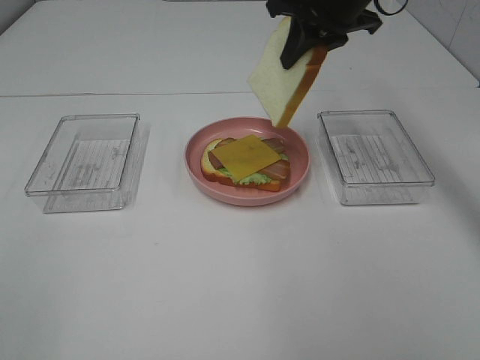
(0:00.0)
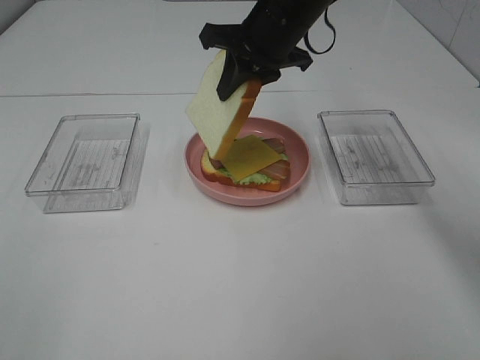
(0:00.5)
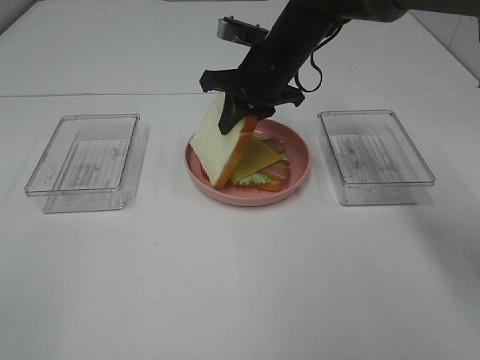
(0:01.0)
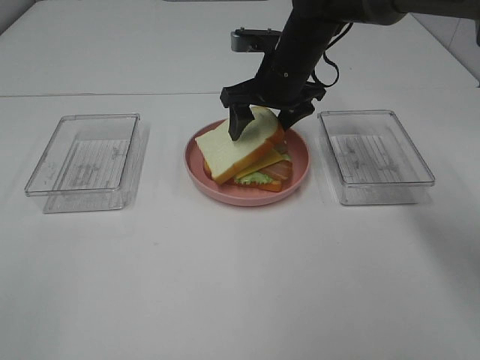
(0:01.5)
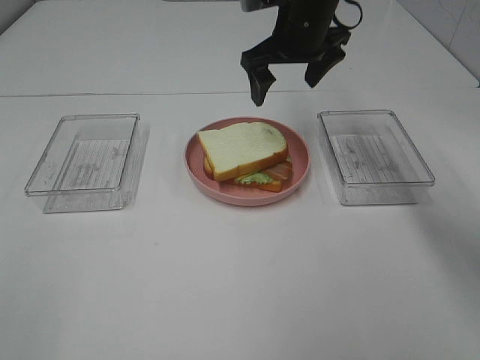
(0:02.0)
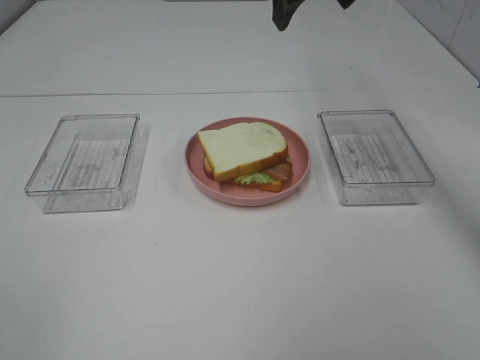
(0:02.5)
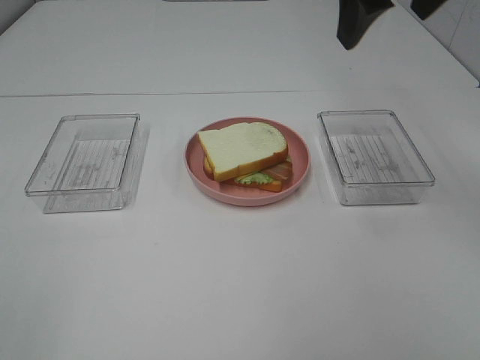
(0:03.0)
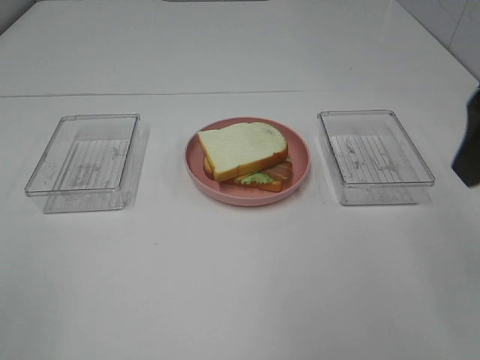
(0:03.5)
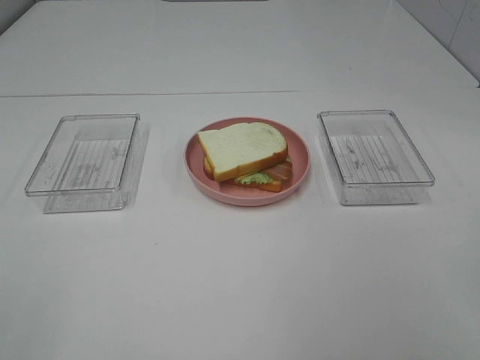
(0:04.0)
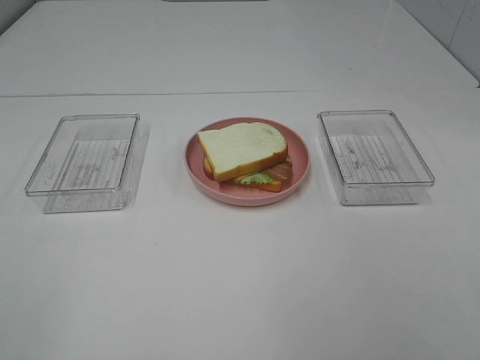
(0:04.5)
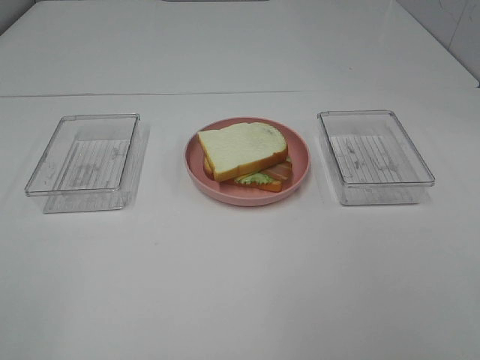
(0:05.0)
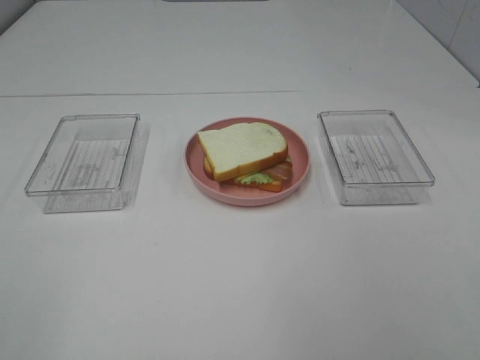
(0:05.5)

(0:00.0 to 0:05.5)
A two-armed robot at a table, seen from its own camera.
Task of the whole recording: Make sandwiches.
Step, 0:00.0 - 0:01.5: Right hand:place the bread slice on the cheese slice.
0:00.0 - 0:02.0: The right gripper moves roughly 10 cm downward and comes back, and opens its fingers.
0:02.0 - 0:03.5: The right gripper moves backward and to the right, approximately 30 cm.
0:03.5 - 0:05.5: The right gripper heads backward, covering about 20 cm.

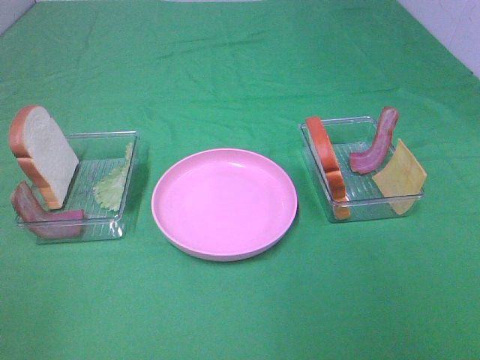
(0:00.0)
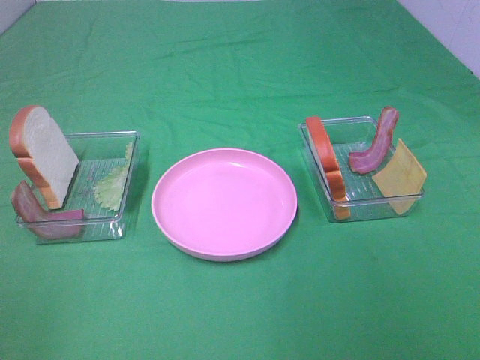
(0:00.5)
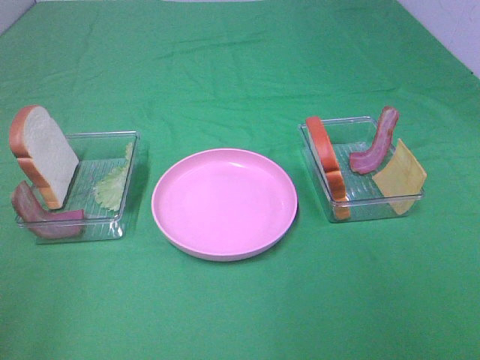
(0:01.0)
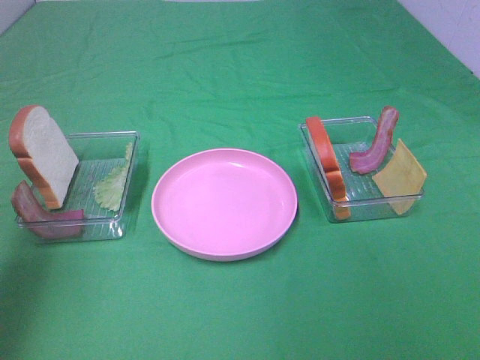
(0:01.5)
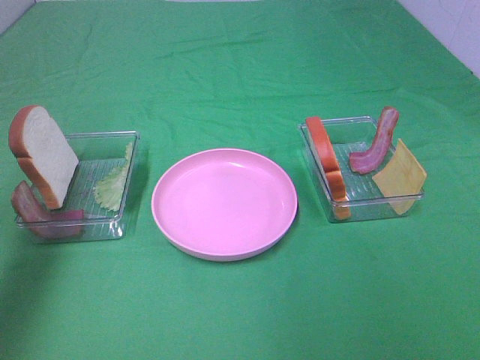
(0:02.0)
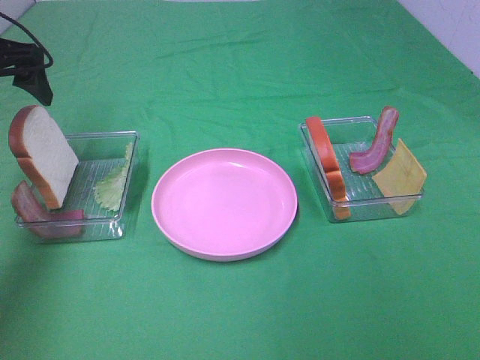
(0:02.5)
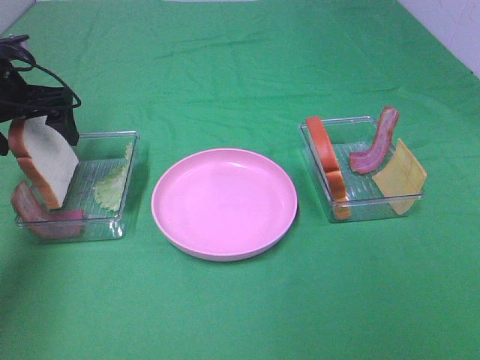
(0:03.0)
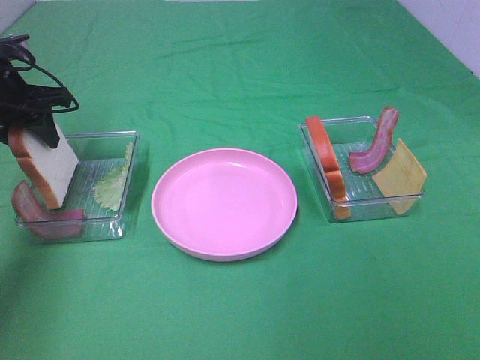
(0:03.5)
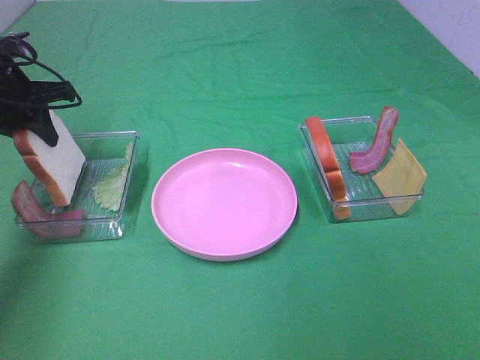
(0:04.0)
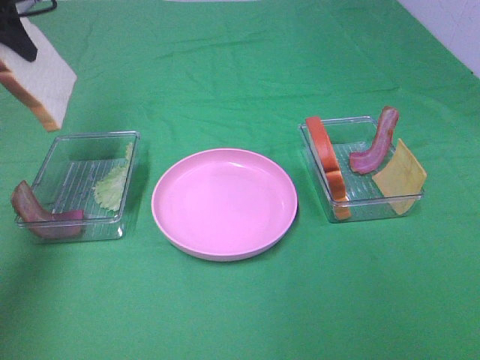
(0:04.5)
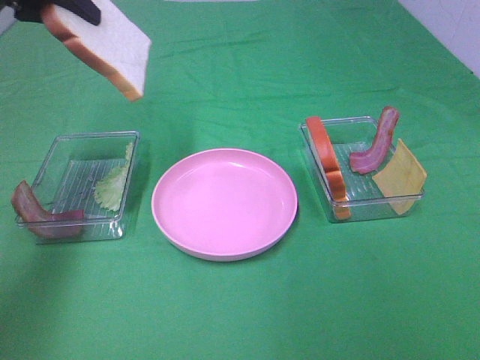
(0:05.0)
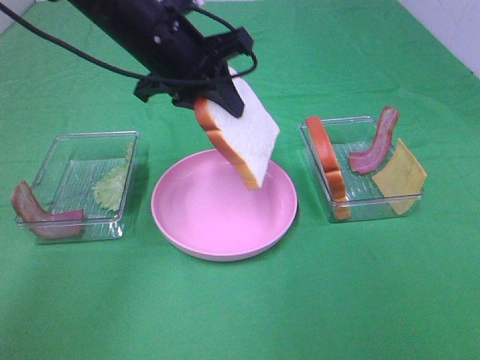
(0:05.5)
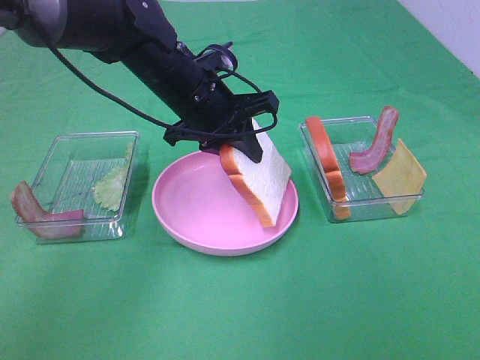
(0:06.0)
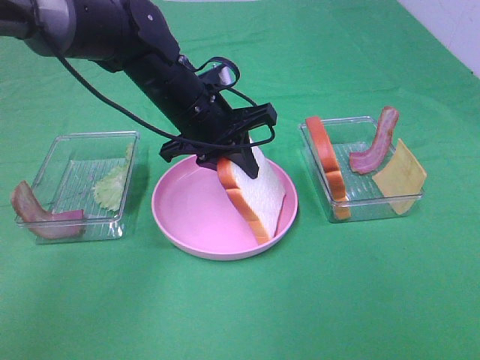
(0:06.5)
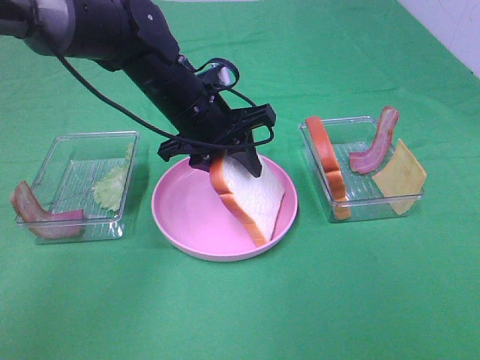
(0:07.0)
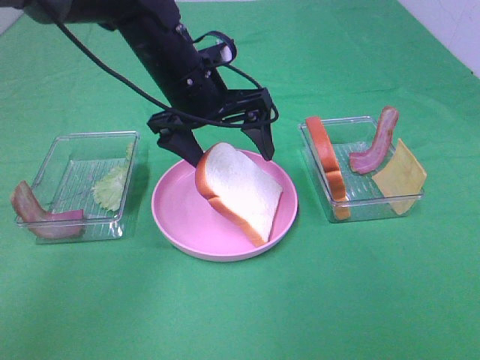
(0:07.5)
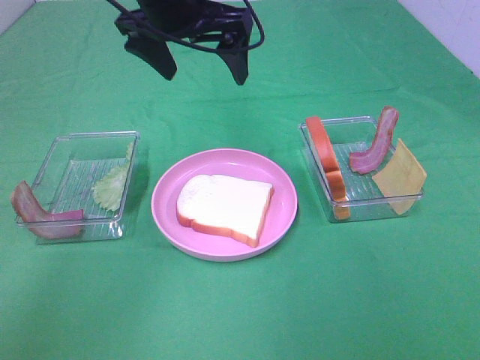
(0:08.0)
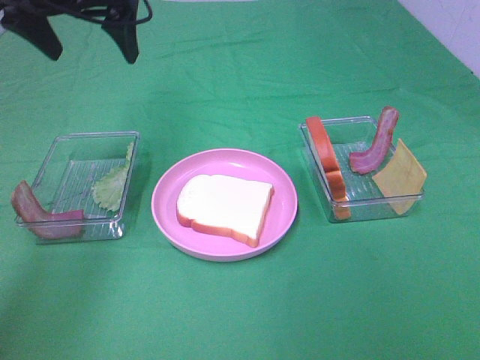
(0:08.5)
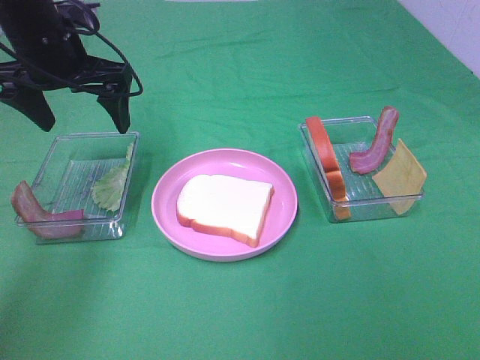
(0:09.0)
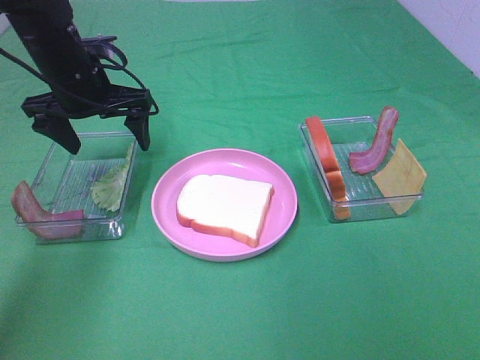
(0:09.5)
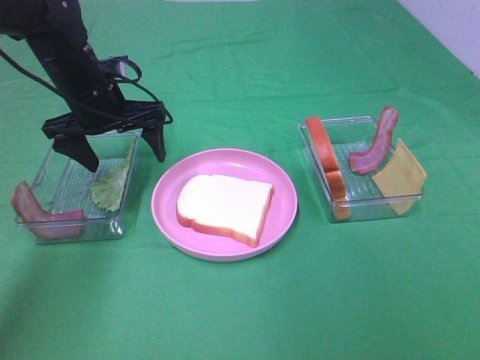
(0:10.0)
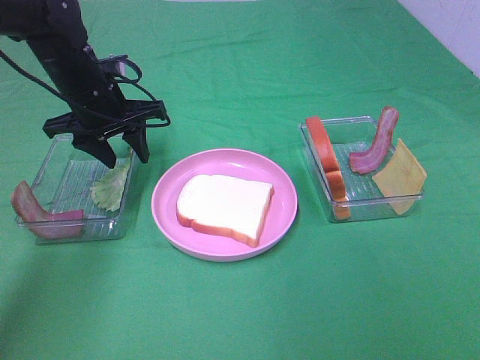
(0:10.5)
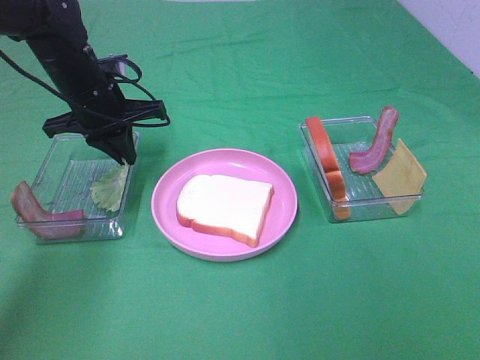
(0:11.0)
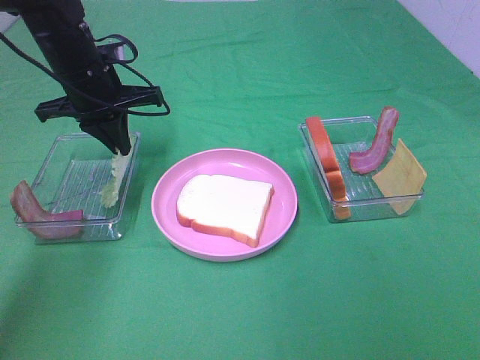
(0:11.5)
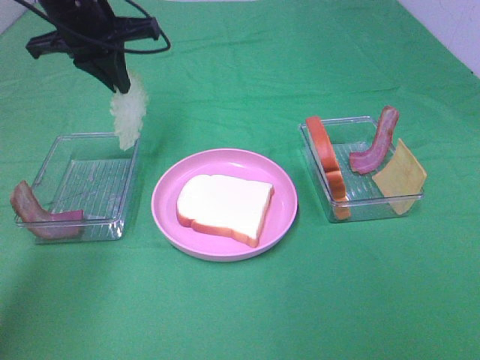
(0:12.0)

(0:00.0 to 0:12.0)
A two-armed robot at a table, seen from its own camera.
Task of the whole recording: Make sandwiches.
Step, 0:00.0 - 0:03.5: Left hand:grab the bread slice.
Step, 0:04.0 - 0:07.5: Left hand:place the bread slice on the plate.
Step, 0:08.0 - 0:11.0: Left hand:grab the lettuce slice.
0:00.0 - 0:02.0: The left gripper travels forward by some 30 cm.
0:02.0 - 0:04.0: The left gripper moves forward and downward, roughly 15 cm, and closes up.
0:04.0 - 0:06.0: The left gripper goes roughly 25 cm to the right.
0:06.0 - 0:08.0: The left gripper heads upward, covering about 15 cm, and opens.
0:08.0 - 0:10.0: The left gripper goes some 20 cm downward and to the left.
0:10.0 - 0:12.0: The left gripper moves upward, roughly 10 cm, and closes.

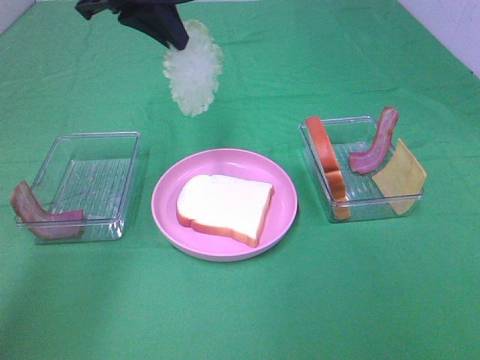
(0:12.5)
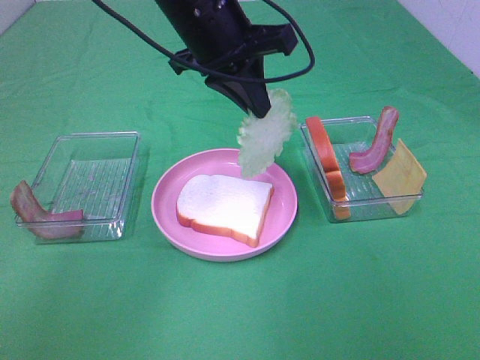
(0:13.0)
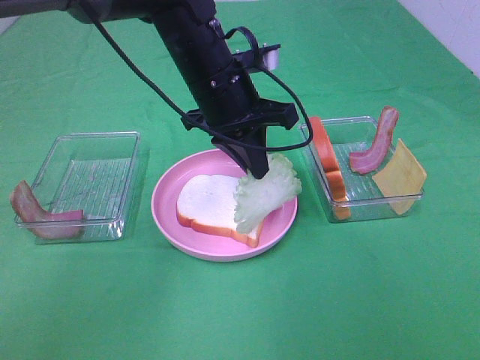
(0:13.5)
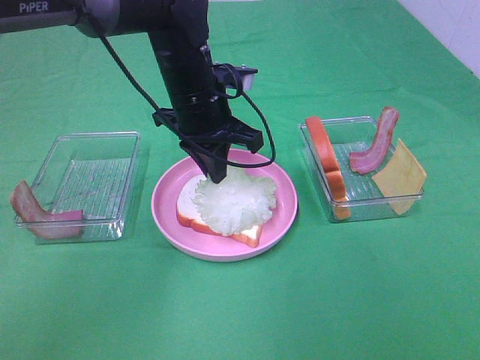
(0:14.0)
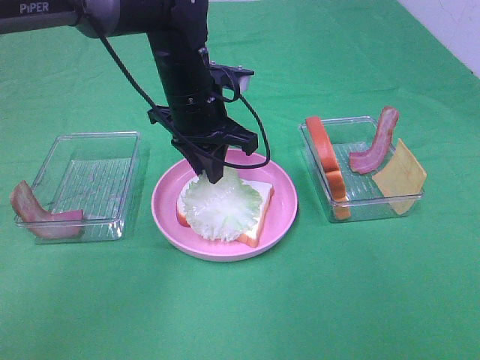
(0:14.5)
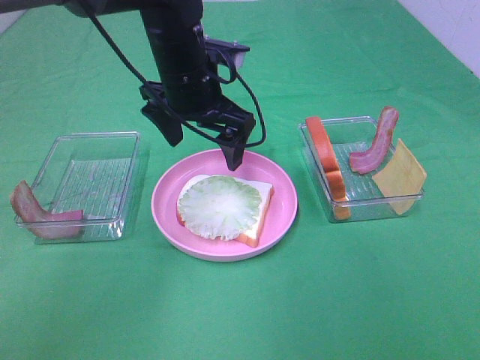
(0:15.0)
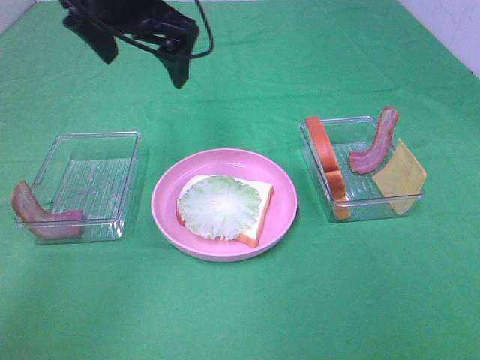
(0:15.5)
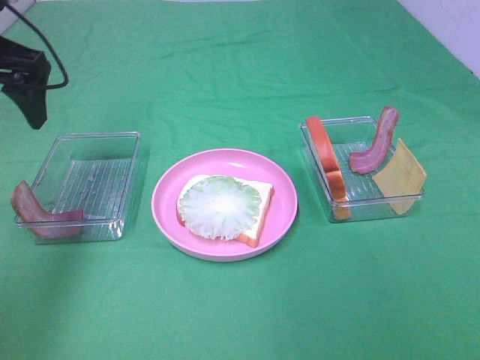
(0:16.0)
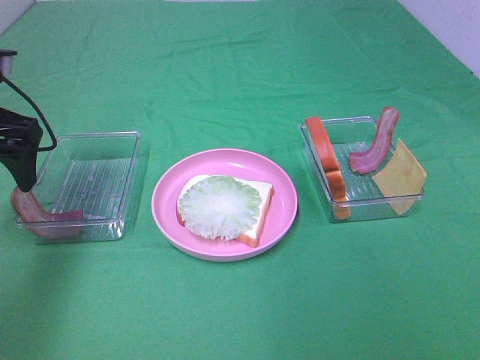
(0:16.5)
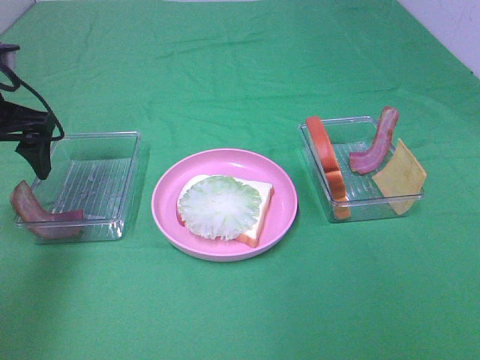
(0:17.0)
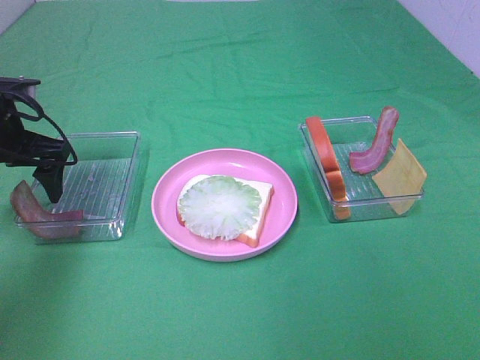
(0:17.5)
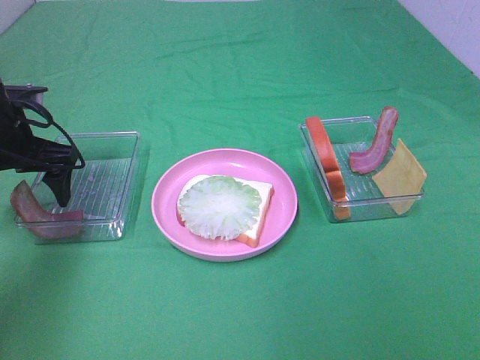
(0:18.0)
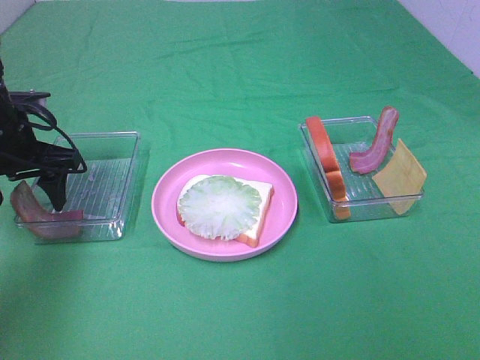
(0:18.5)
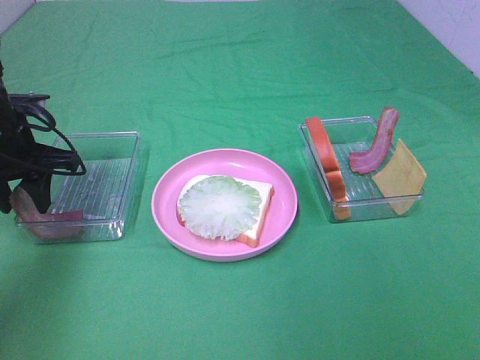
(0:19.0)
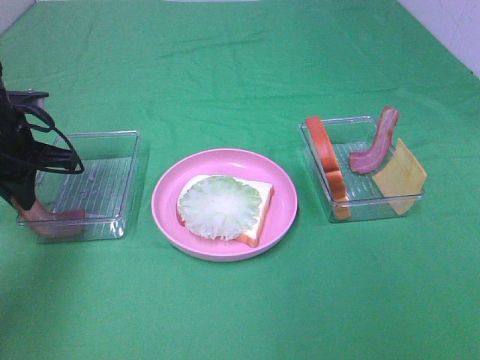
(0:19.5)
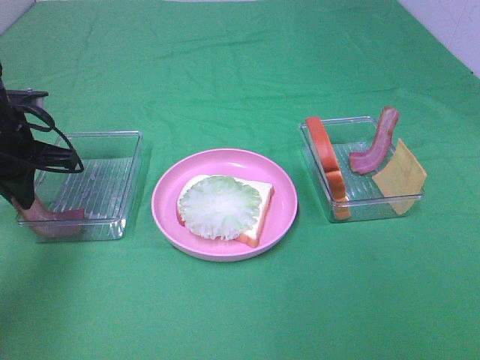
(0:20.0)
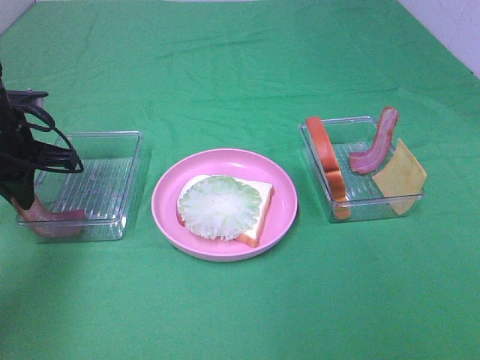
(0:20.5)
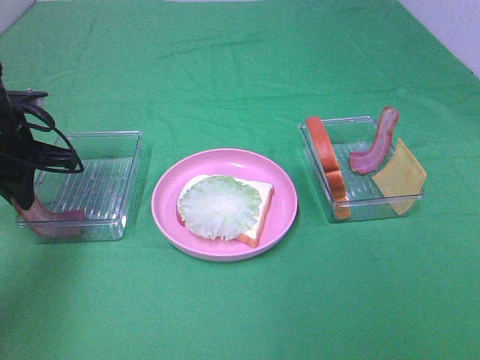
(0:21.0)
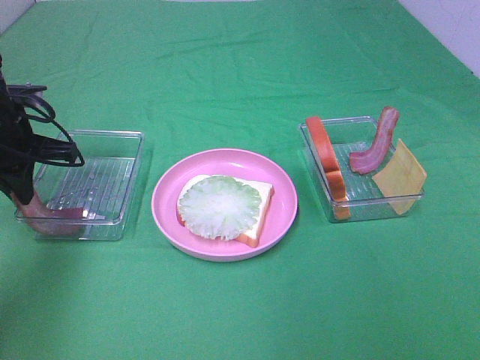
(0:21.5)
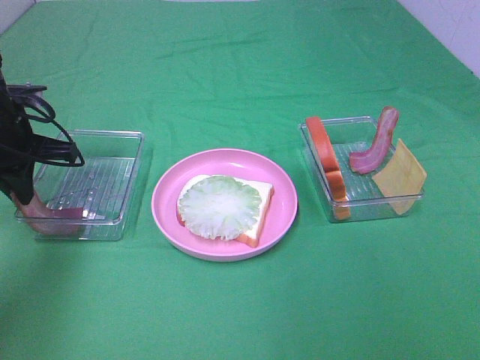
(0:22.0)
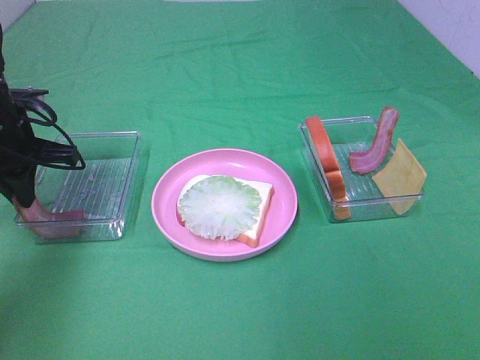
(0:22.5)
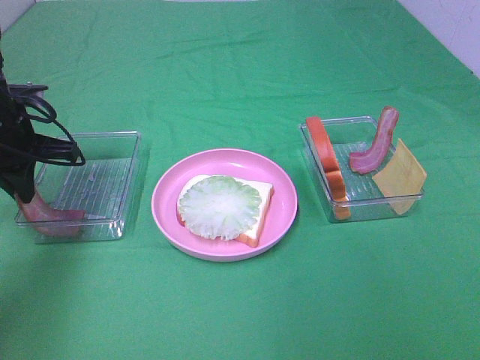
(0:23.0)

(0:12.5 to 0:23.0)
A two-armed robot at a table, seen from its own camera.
Task of the whole recording: Make sandwiches.
Step, 0:12.5 - 0:14.5: Left hand:place the lettuce slice on the bread slice.
Step, 0:15.0 - 0:19.5: Left hand:grab the bacon.
0:12.5 - 0:14.5: The left gripper travels downward and to the right by some 15 cm.
0:14.5 - 0:16.5: The left gripper heads to the left, covering some 25 cm, and opens.
0:16.5 - 0:19.0: The left gripper heads downward, covering some 5 cm, and closes its fingers.
0:19.0 - 0:21.0: The left gripper closes.
0:21.0 - 0:23.0: The two grippers keep their place.
